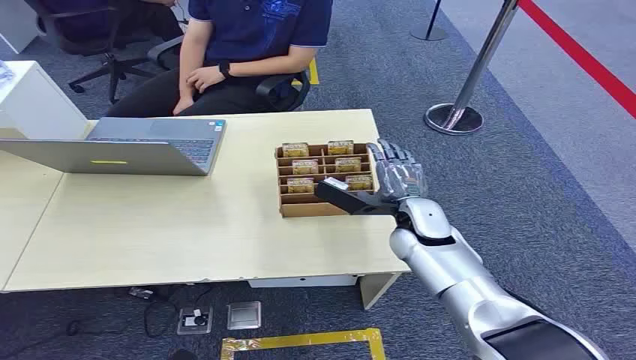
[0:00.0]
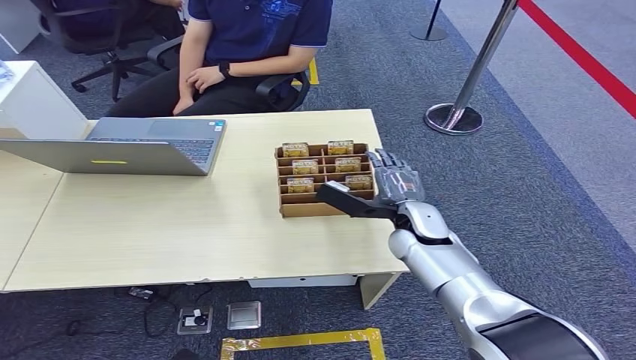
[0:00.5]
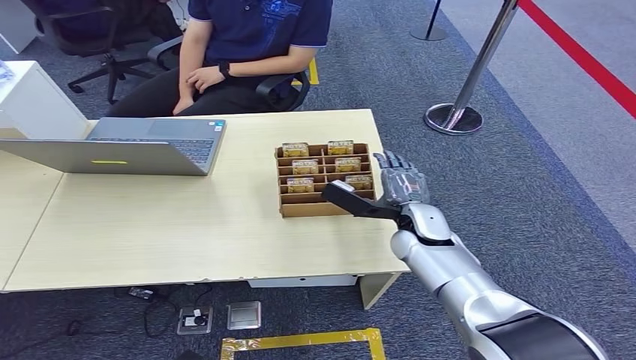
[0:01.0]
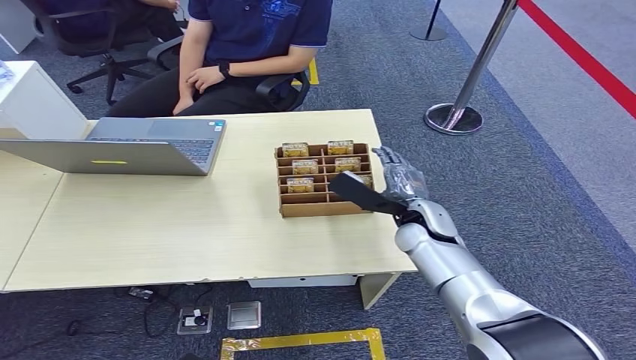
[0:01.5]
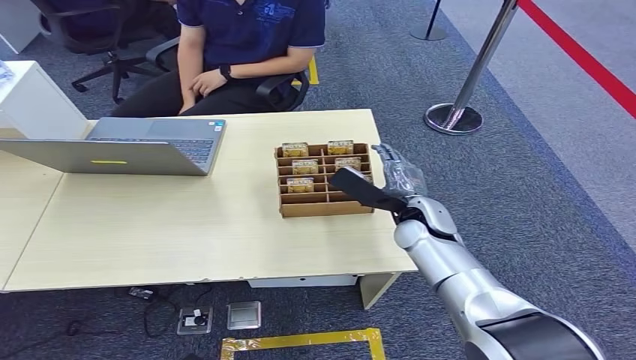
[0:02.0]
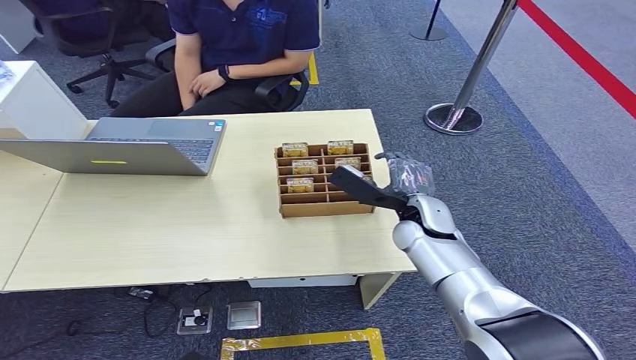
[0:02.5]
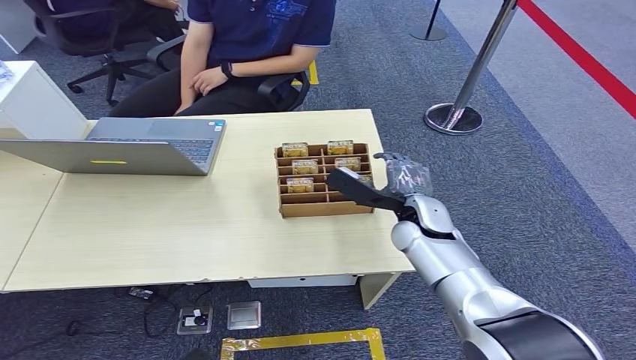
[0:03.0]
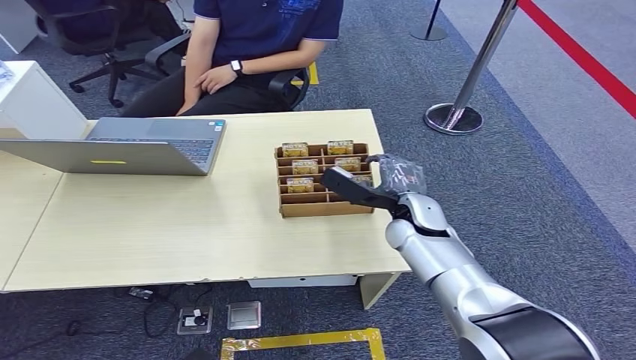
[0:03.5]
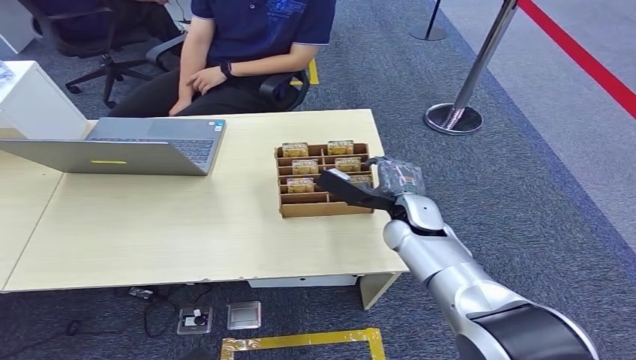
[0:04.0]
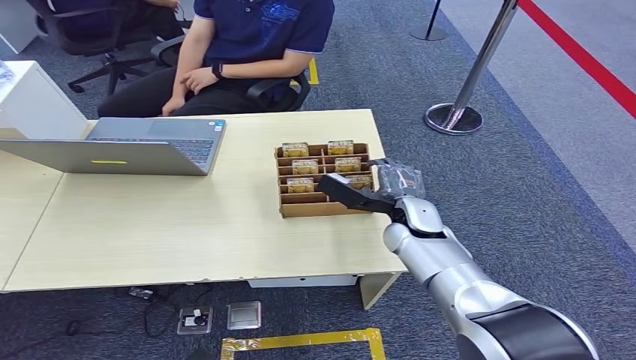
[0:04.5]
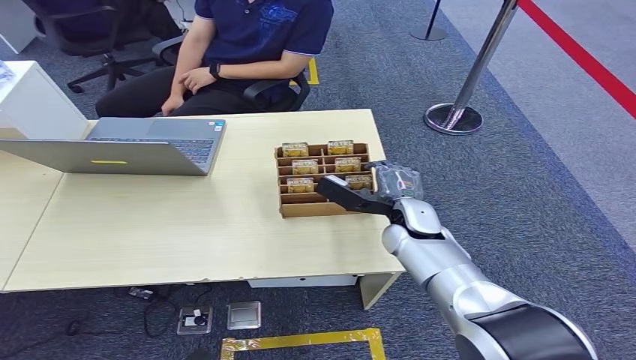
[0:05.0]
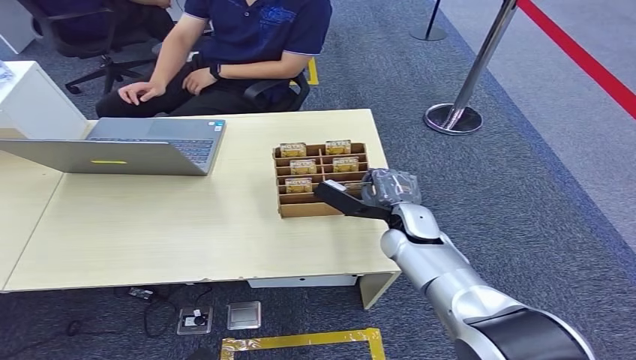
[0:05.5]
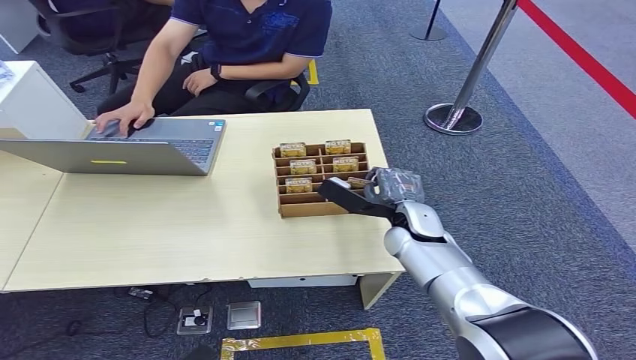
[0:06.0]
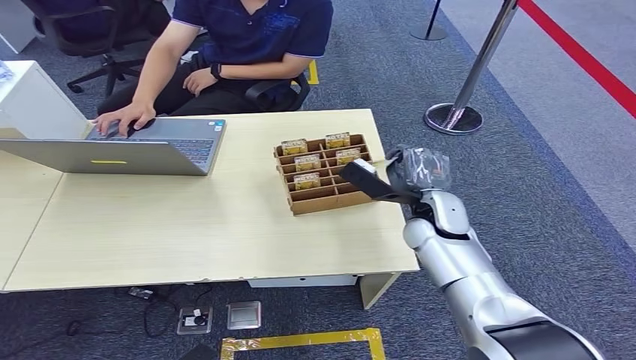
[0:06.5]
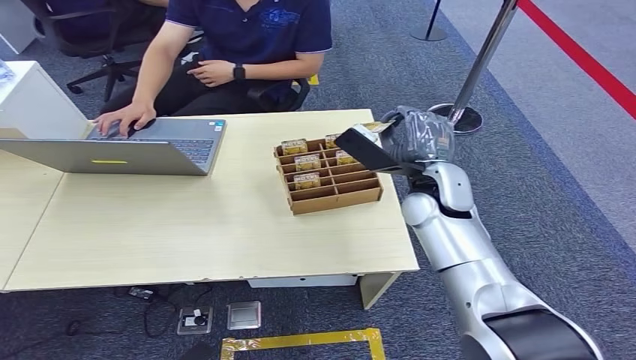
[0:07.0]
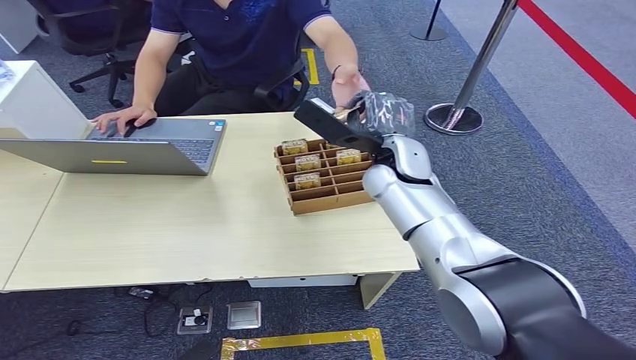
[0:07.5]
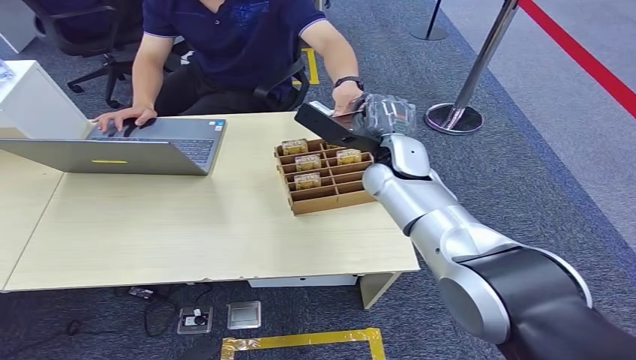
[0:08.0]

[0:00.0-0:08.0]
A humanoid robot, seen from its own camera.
Step, 0:00.0 to 0:06.5: Pick up the room card from the card holder.
Step, 0:07.0 to 0:08.0: Hand the room card to the target.
0:02.0 to 0:06.0: The hands move only a little.
0:06.0 to 0:08.0: The right hand shifts about 15 cm upward and forward.
